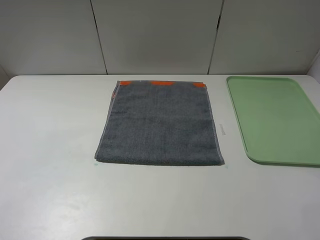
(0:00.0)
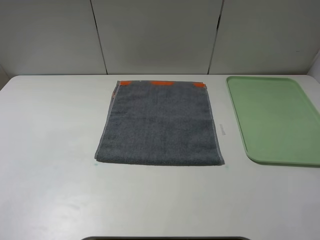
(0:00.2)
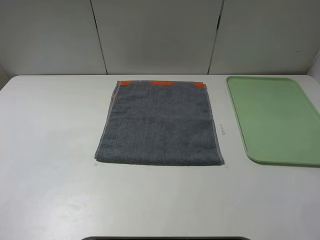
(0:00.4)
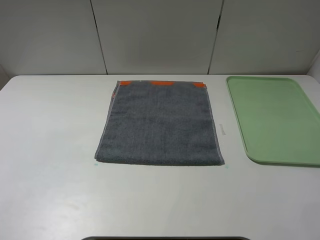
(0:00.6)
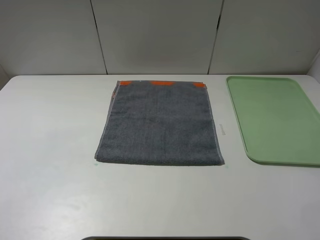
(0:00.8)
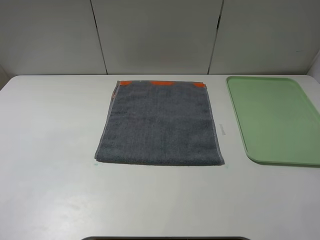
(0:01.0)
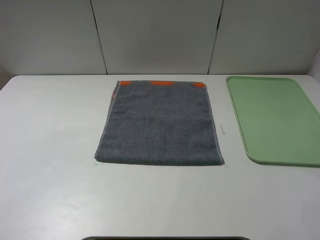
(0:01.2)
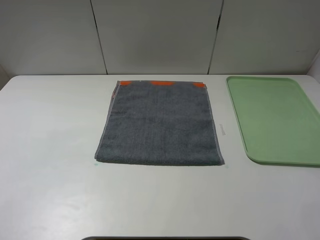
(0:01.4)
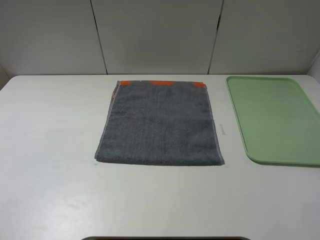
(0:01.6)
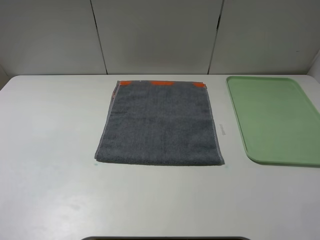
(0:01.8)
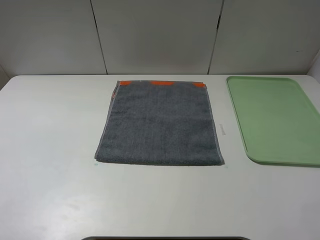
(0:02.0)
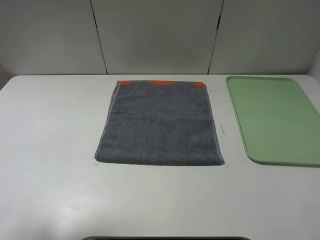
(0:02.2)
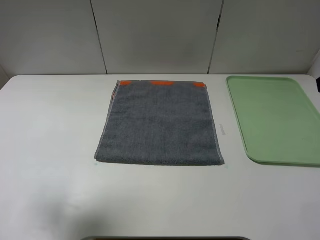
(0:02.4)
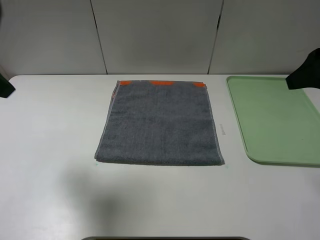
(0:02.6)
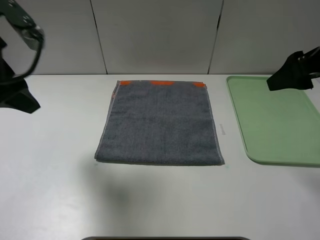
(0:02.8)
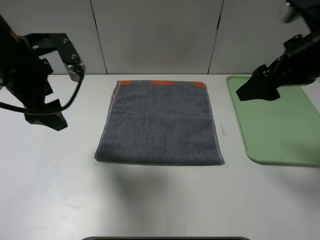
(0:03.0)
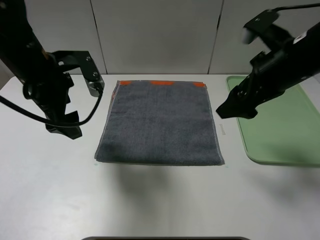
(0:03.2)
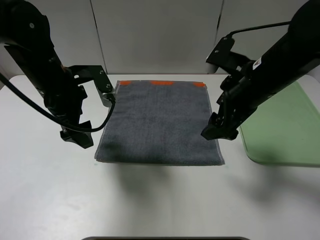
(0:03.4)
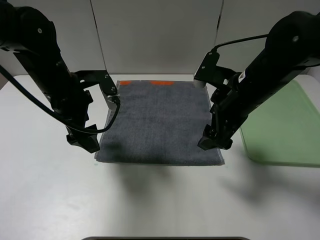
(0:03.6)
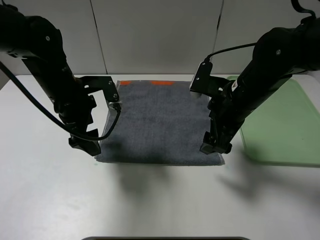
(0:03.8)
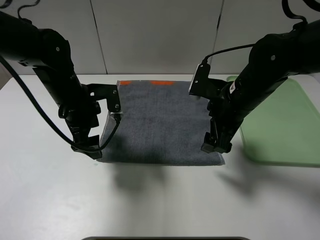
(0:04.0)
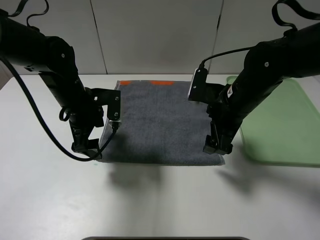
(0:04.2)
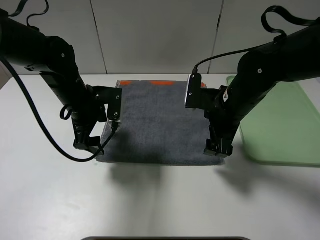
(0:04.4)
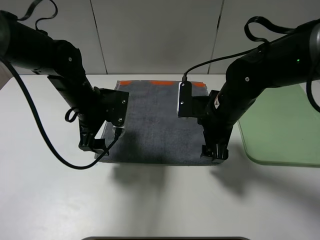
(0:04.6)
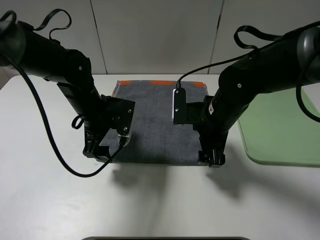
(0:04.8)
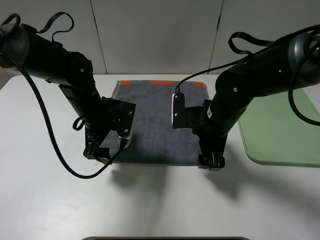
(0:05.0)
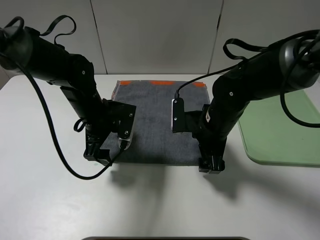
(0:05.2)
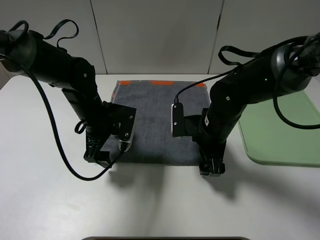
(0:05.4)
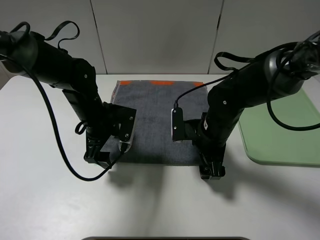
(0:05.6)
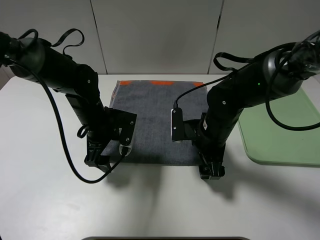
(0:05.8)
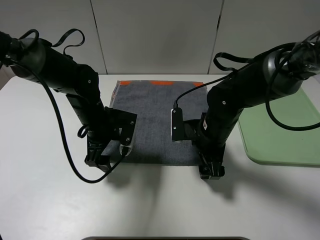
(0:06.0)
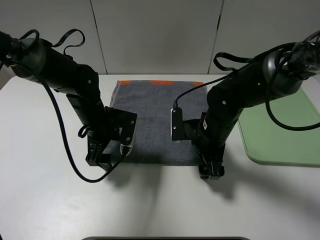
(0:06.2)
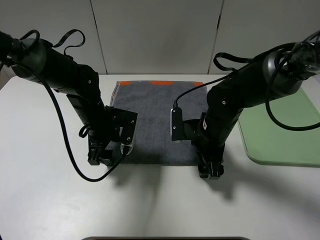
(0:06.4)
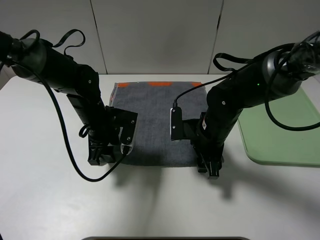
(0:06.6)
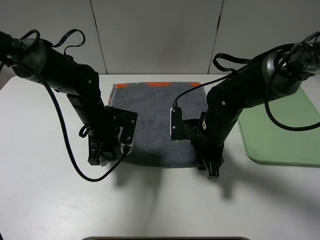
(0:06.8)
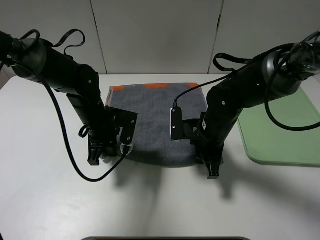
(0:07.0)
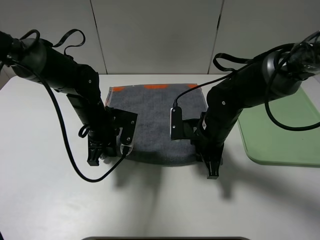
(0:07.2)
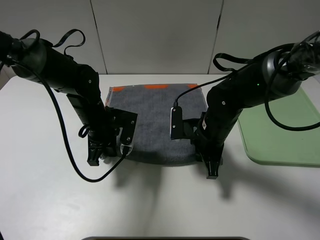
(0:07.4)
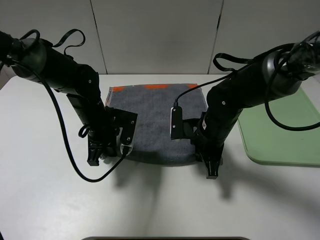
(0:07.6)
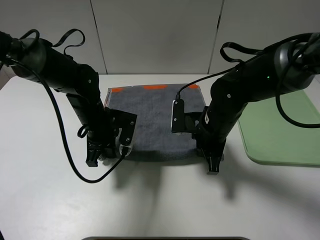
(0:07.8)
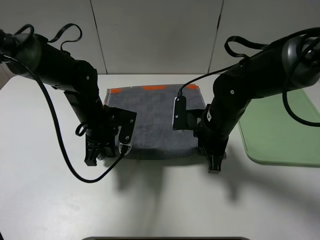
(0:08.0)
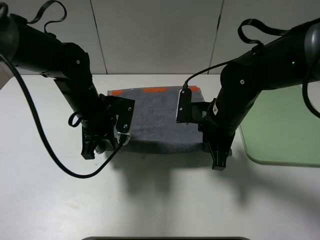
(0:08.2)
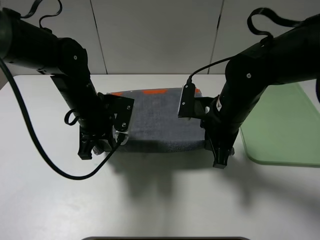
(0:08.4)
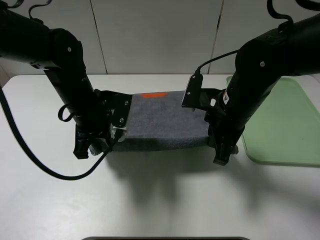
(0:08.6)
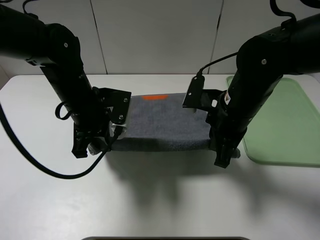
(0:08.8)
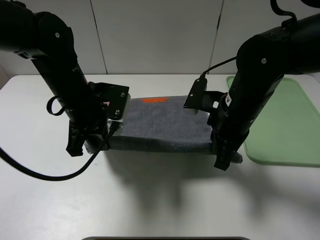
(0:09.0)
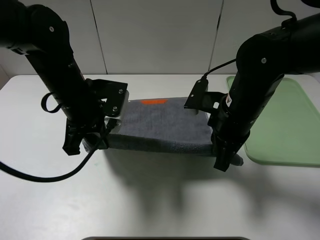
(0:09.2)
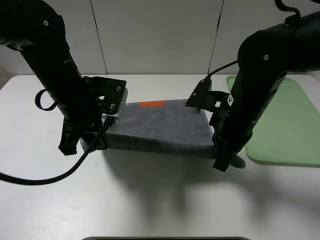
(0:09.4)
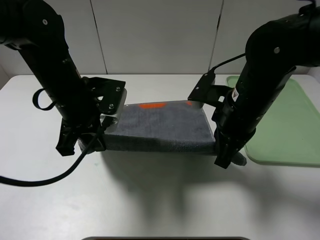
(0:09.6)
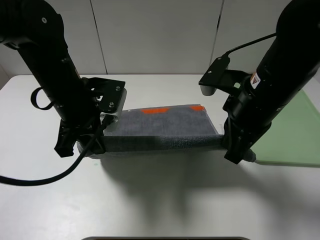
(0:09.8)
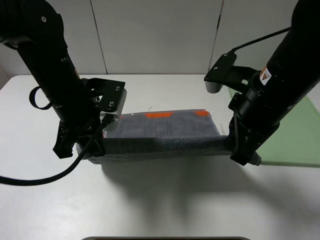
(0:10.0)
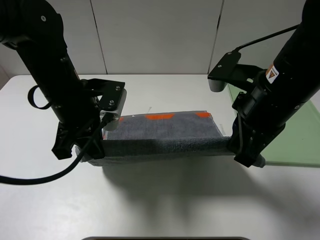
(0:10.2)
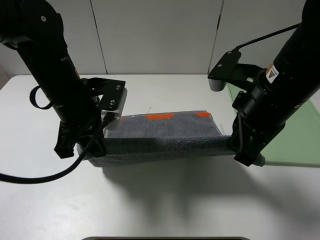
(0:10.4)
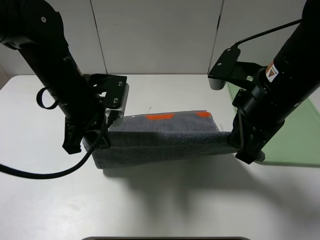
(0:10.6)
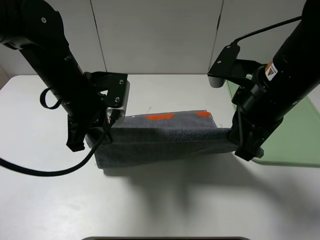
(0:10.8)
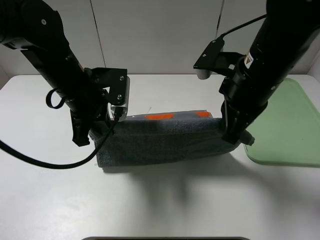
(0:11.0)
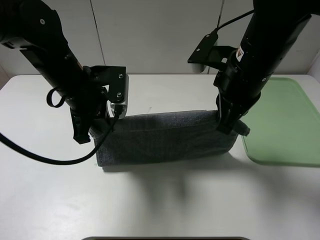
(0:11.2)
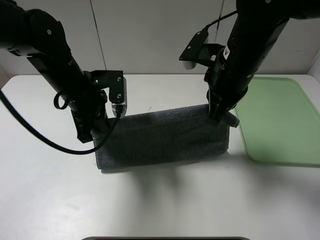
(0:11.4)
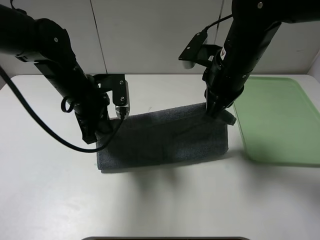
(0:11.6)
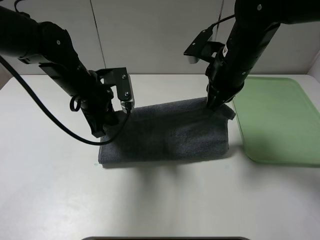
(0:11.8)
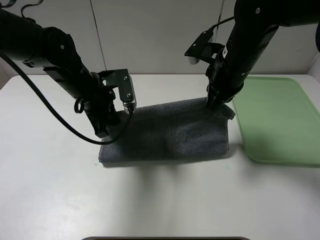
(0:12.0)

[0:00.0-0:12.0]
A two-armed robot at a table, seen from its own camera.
0:01.6 to 0:03.0: Both grippers travel together forward, some 25 cm.
0:03.0 to 0:04.4: The right gripper travels downward and to the left by roughly 15 cm, while the left gripper moves downward, roughly 10 cm.
0:04.4 to 0:06.0: Both grippers travel together downward, about 5 cm.
0:06.0 to 0:07.6: The right gripper closes its fingers; the left gripper closes its fingers.
0:07.6 to 0:09.0: Both grippers move upward, some 10 cm.
0:09.0 to 0:10.4: The right gripper goes roughly 5 cm upward.
0:10.4 to 0:12.0: The left gripper goes roughly 5 cm forward, while the right gripper shifts approximately 10 cm forward.

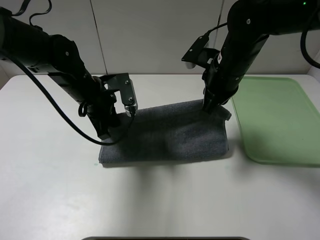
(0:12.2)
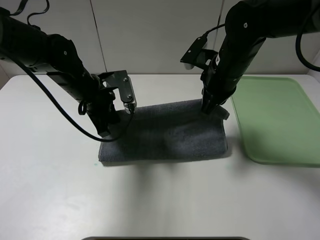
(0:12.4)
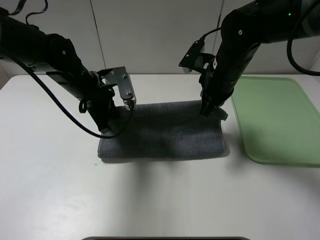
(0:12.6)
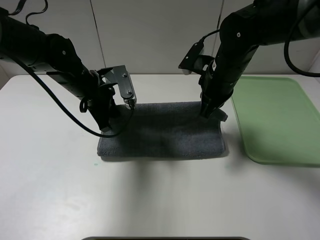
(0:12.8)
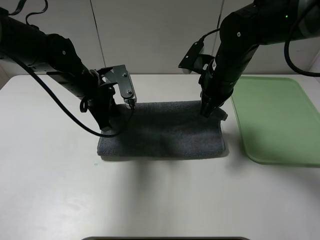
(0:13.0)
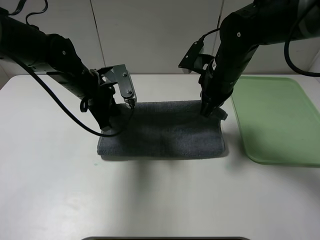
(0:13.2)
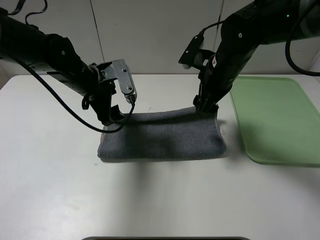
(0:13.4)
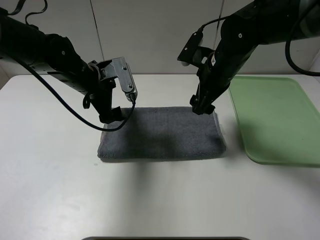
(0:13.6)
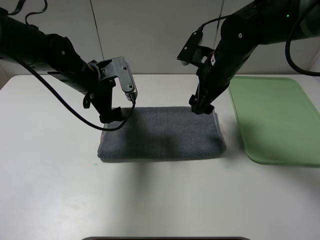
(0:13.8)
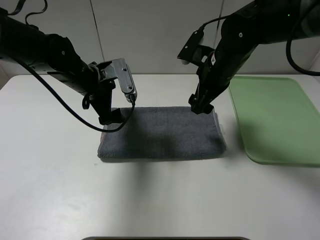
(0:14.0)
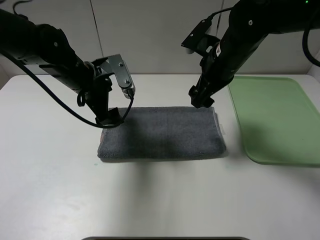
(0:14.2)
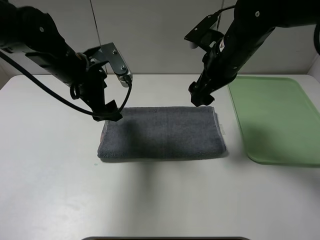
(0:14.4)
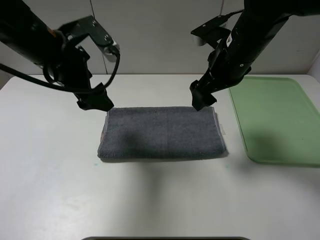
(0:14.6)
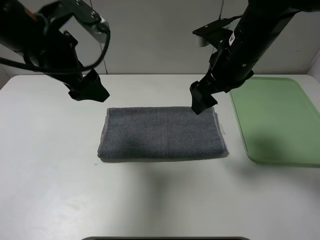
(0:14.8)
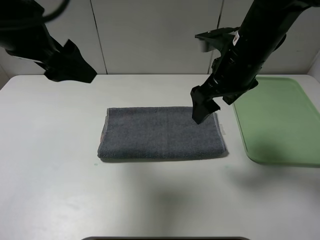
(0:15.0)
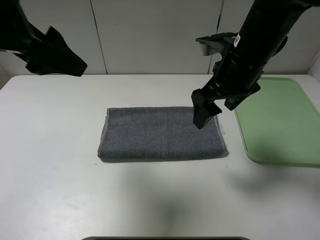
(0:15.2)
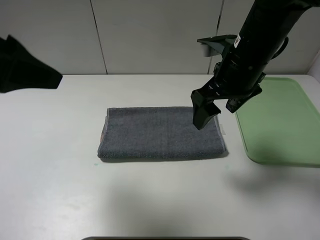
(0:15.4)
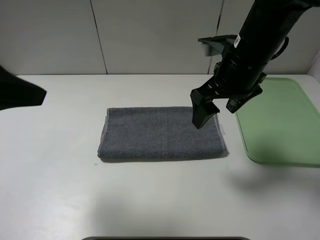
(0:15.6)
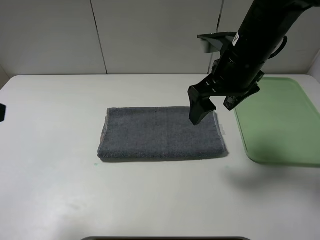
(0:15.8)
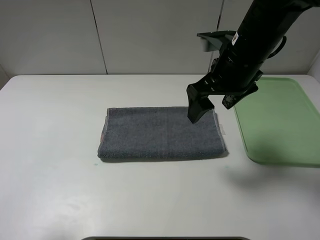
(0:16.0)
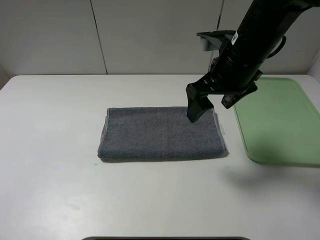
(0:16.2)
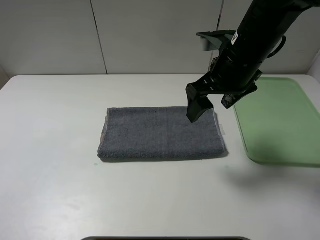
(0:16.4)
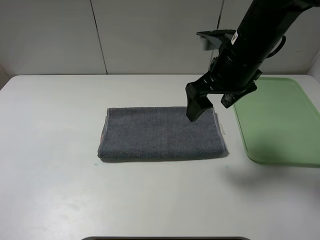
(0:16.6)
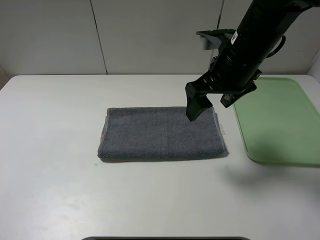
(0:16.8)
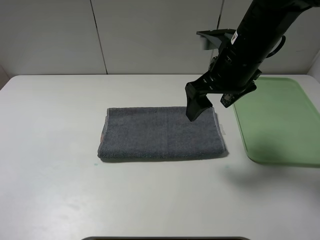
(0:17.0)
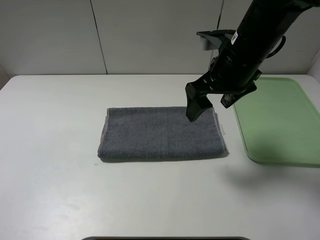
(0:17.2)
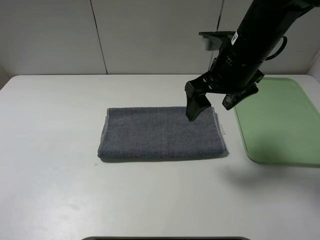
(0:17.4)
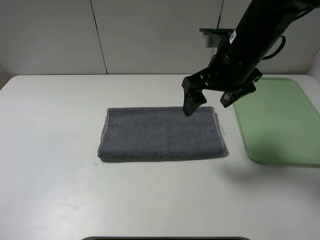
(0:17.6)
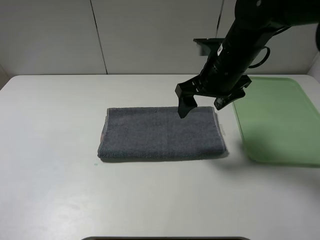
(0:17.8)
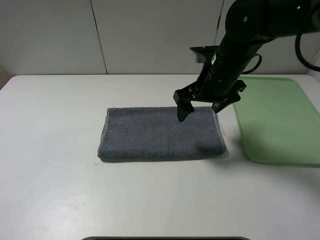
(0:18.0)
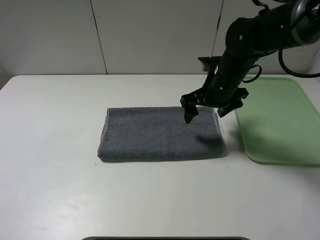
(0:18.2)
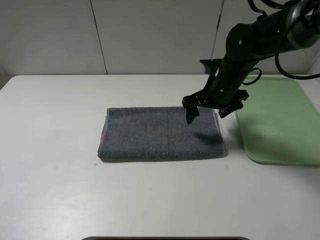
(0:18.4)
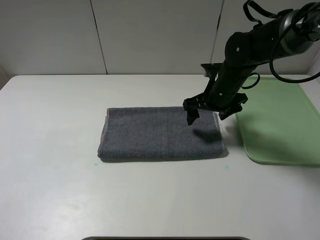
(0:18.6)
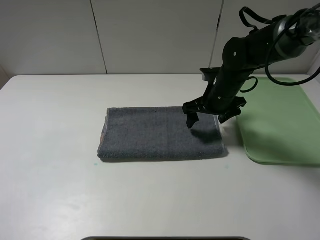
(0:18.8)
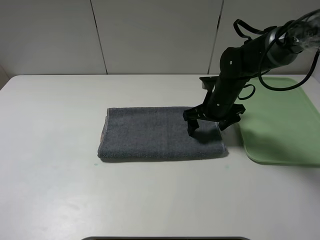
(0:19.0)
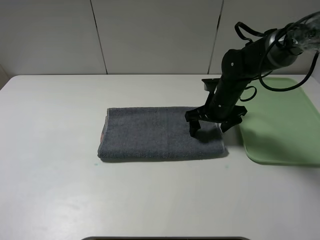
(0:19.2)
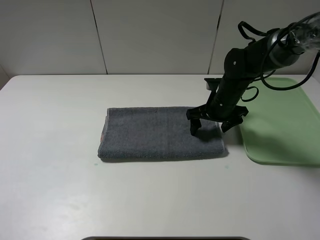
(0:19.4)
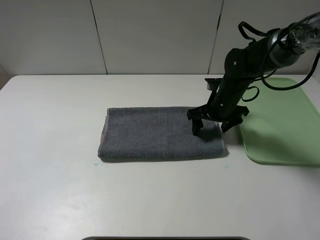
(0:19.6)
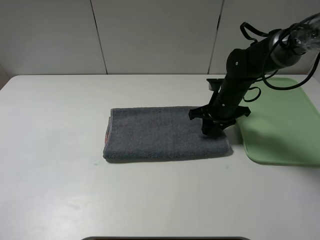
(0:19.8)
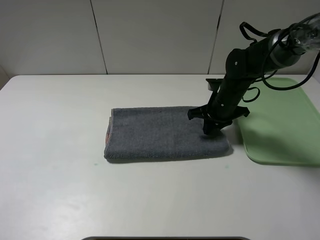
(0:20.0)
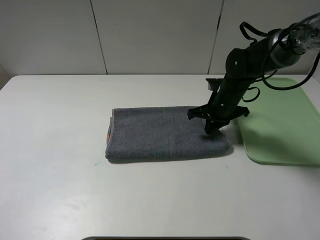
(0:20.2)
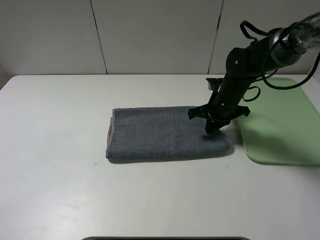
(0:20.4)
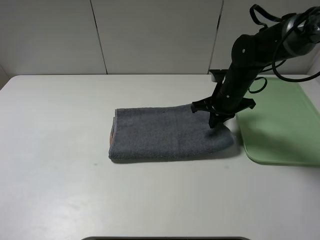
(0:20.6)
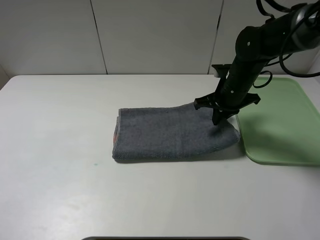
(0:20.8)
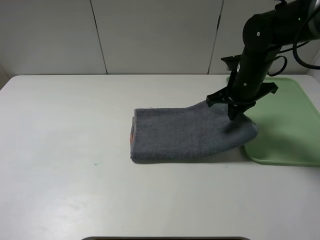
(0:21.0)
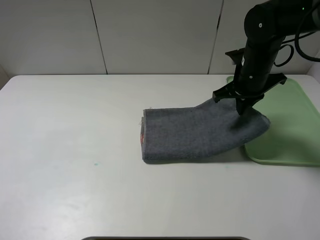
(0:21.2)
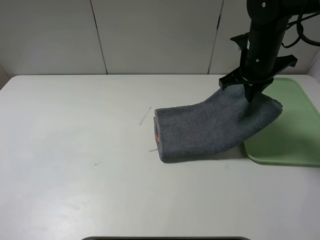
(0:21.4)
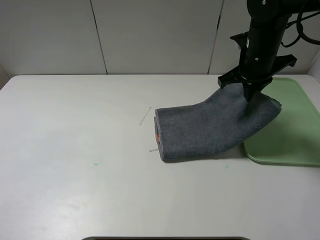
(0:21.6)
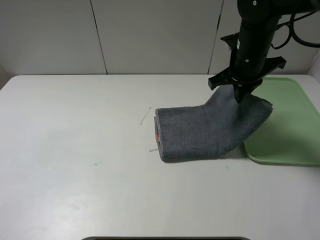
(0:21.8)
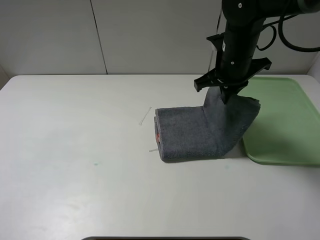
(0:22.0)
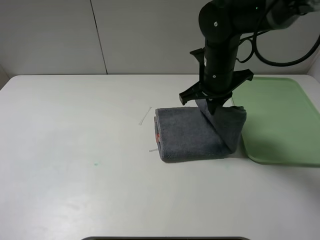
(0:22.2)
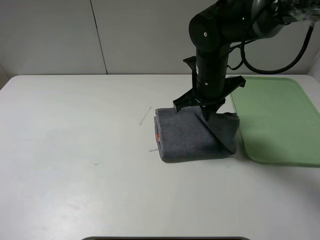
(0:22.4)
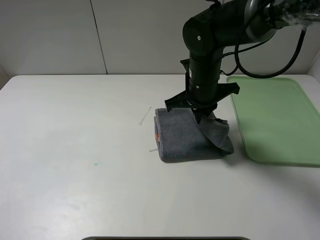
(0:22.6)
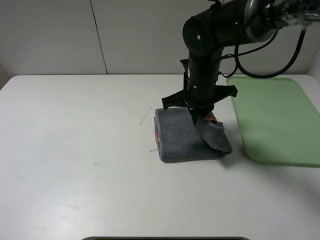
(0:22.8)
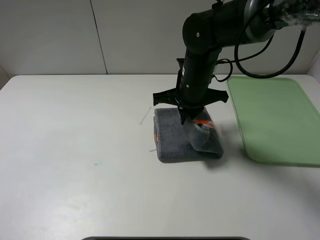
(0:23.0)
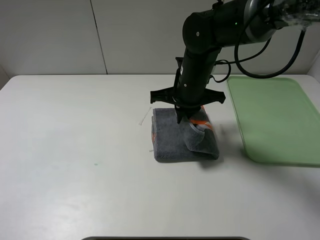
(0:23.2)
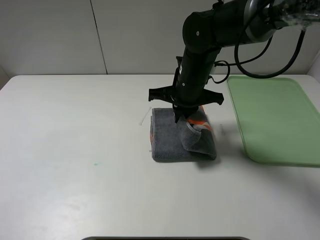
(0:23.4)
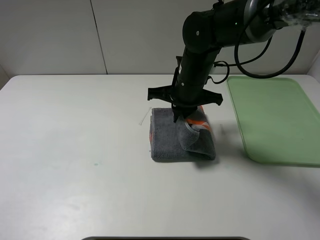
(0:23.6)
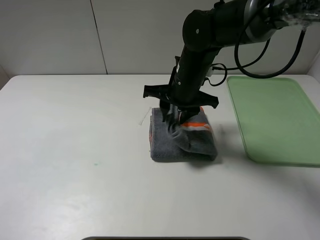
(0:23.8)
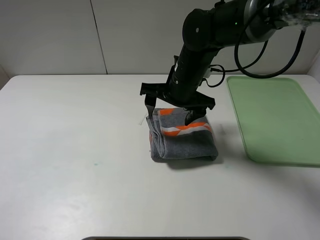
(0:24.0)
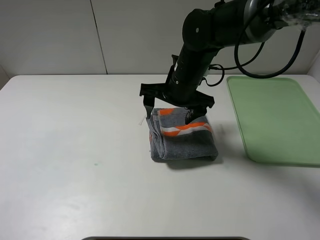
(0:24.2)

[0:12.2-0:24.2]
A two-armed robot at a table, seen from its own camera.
Step, 0:13.6 to 0:23.8: Fold the grey towel from right to left with right gripper.
0:12.2 to 0:13.8: The left gripper opens, while the right gripper opens up.
0:13.8 to 0:15.2: The right gripper heads backward and upward, covering about 10 cm. Meanwhile the left gripper is displaced upward and backward by approximately 25 cm.
0:15.2 to 0:16.6: The left gripper heads backward and to the left, covering some 25 cm.
0:16.6 to 0:18.2: The right gripper heads downward and forward, covering about 10 cm.
0:18.2 to 0:19.8: The right gripper is displaced downward by approximately 5 cm, and closes.
0:19.8 to 0:21.2: The right gripper goes roughly 10 cm upward, and closes up.
0:21.2 to 0:22.6: The right gripper heads to the left, covering approximately 10 cm.
0:22.6 to 0:24.2: The right gripper opens up.
